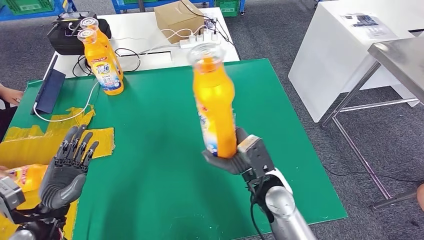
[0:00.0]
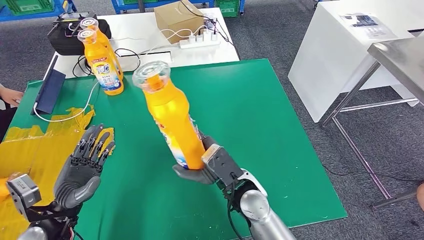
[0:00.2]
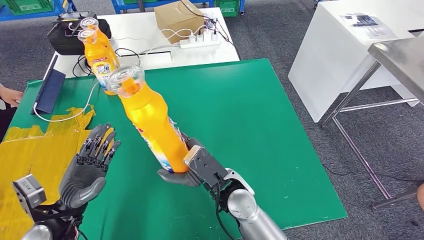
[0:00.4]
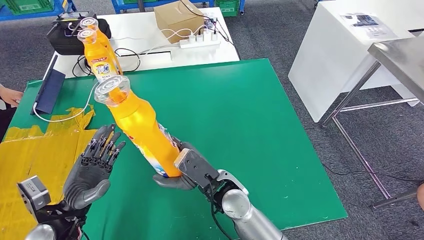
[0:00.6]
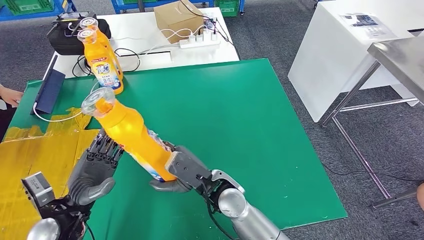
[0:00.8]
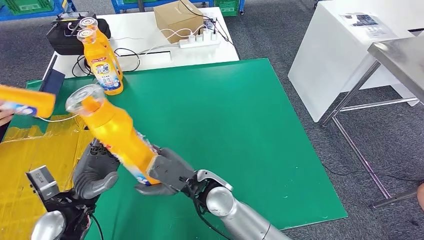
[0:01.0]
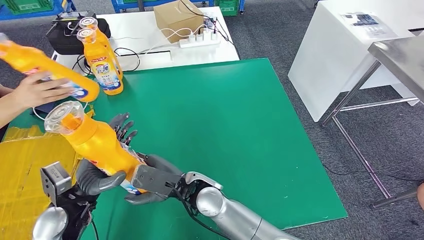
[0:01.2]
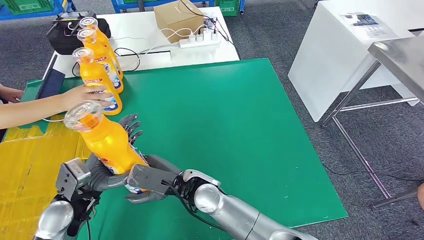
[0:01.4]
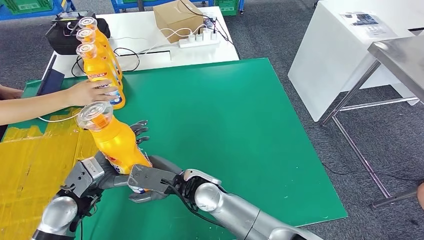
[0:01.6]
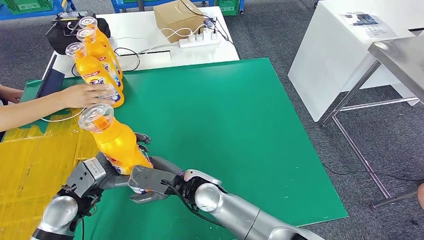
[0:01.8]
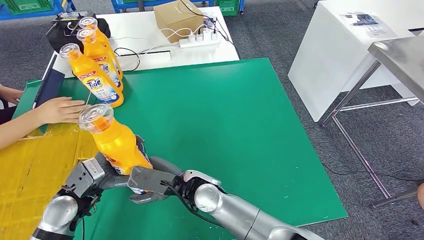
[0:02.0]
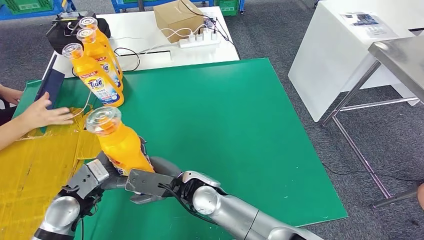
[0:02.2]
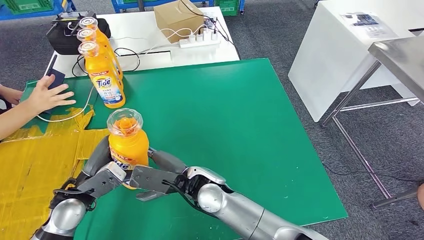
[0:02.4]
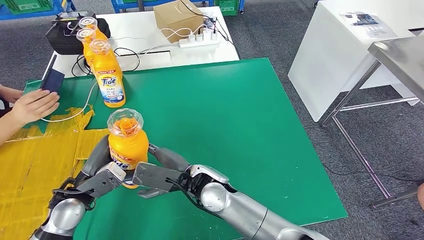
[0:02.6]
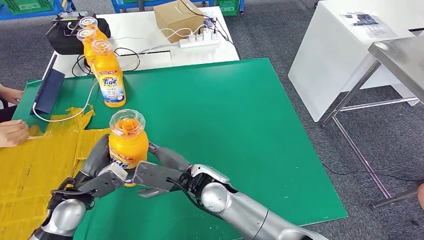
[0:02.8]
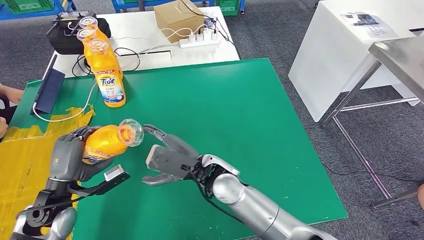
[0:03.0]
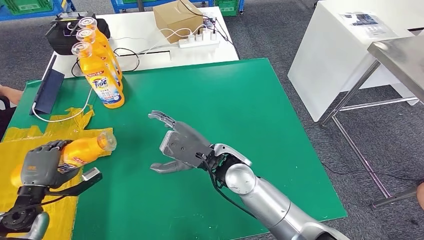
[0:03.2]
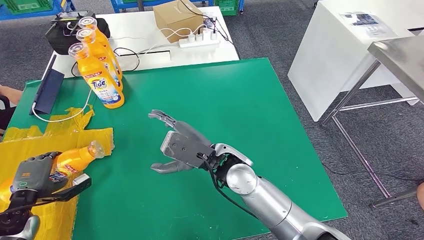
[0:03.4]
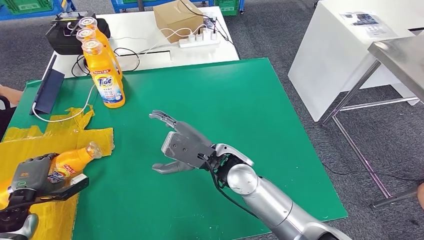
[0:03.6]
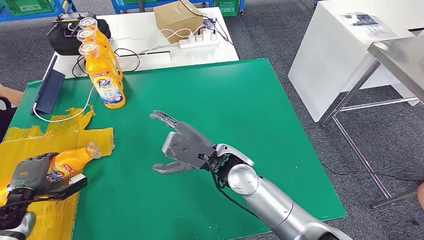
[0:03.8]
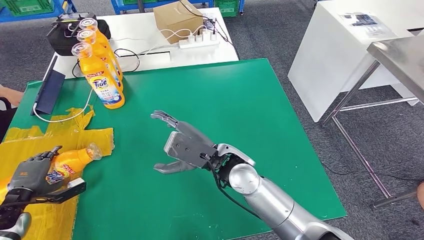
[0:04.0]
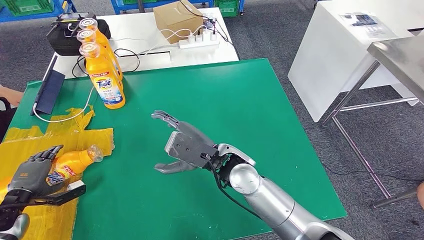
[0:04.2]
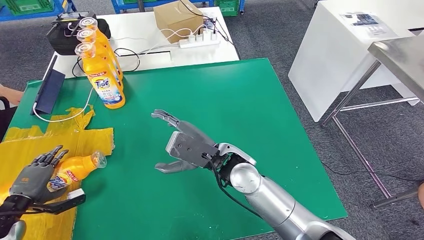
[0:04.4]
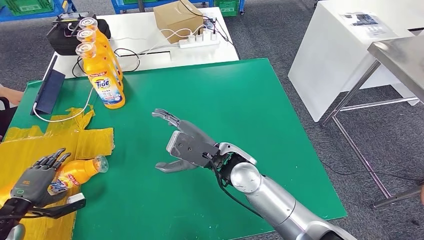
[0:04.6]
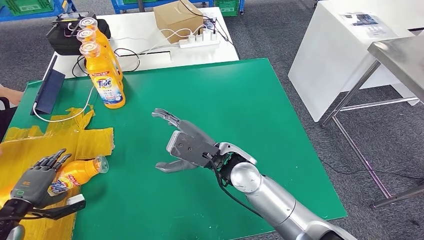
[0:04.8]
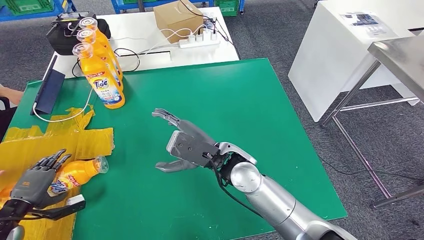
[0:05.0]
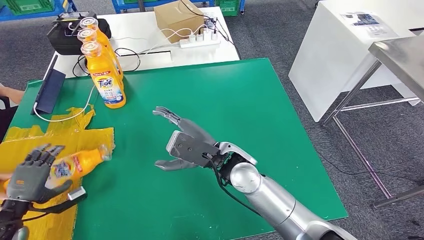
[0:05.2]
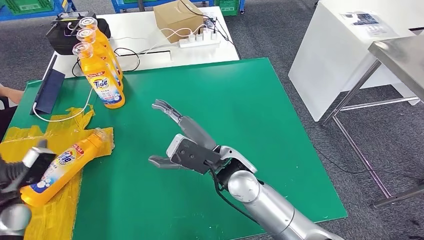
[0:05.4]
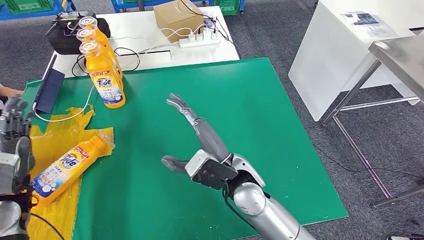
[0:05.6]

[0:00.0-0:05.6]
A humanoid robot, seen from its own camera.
Step, 0:01.2 to 0:05.6: Flip the fast-moving consumer goods bottle to the front side.
0:04.2 to 0:05.6: The left hand is displaced upward and to the right by some 15 cm.
